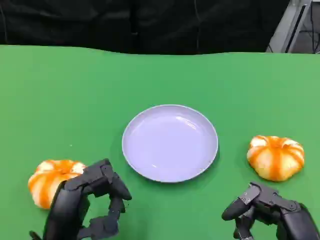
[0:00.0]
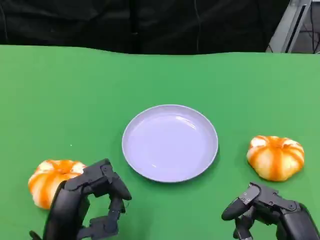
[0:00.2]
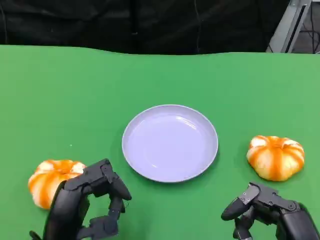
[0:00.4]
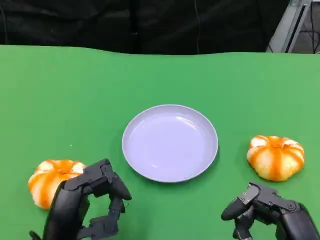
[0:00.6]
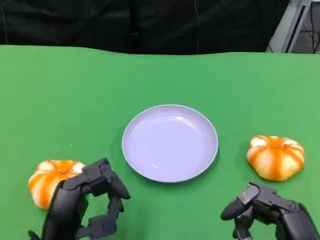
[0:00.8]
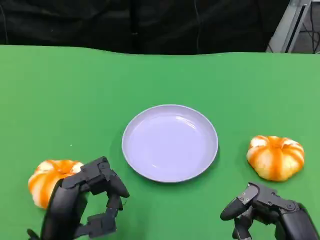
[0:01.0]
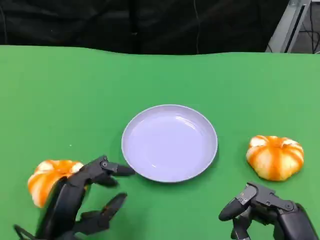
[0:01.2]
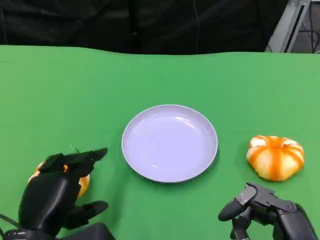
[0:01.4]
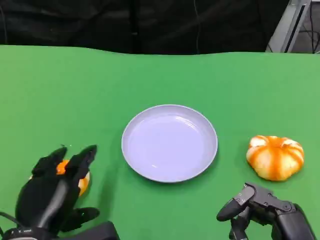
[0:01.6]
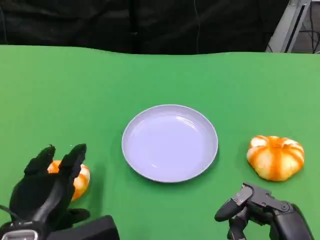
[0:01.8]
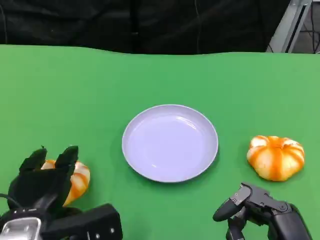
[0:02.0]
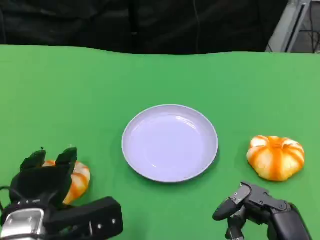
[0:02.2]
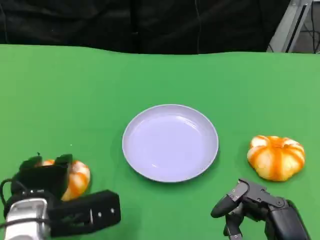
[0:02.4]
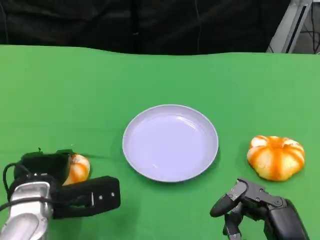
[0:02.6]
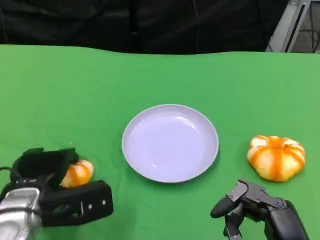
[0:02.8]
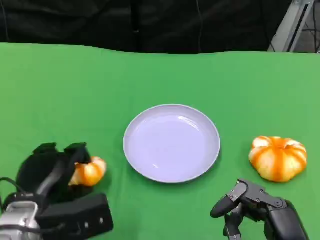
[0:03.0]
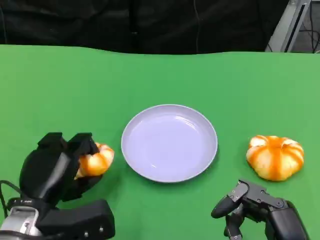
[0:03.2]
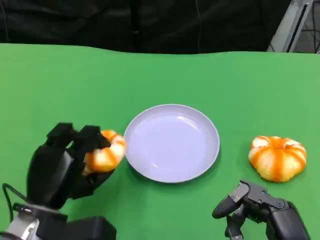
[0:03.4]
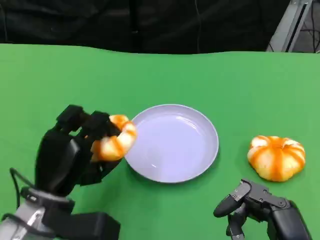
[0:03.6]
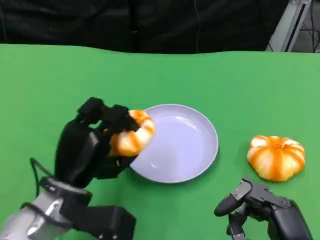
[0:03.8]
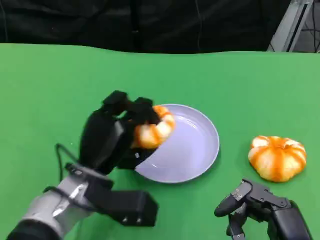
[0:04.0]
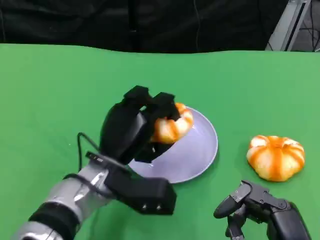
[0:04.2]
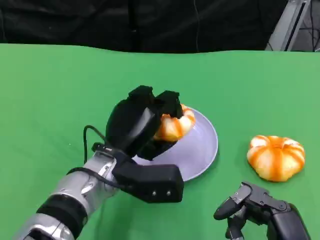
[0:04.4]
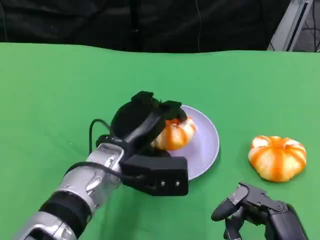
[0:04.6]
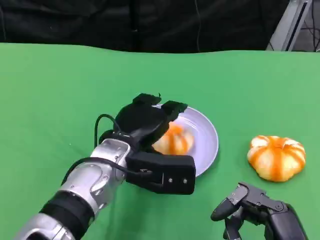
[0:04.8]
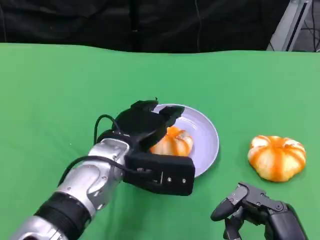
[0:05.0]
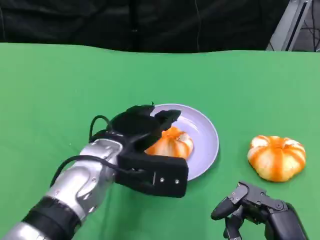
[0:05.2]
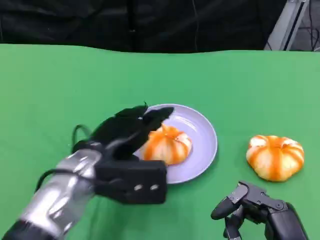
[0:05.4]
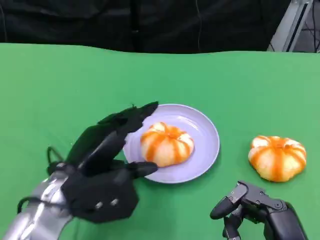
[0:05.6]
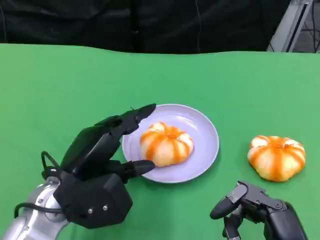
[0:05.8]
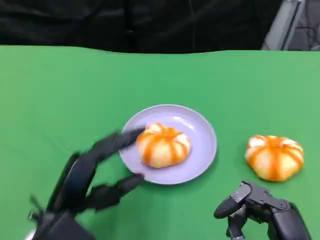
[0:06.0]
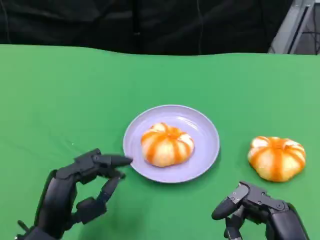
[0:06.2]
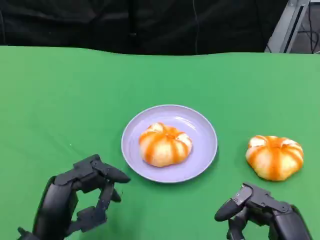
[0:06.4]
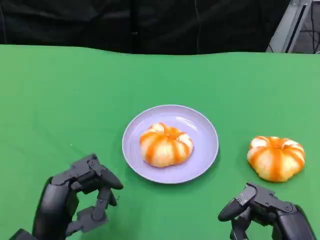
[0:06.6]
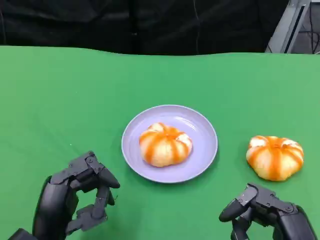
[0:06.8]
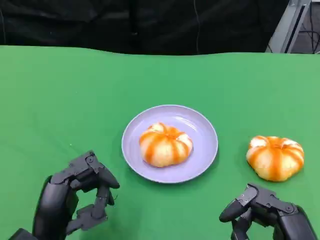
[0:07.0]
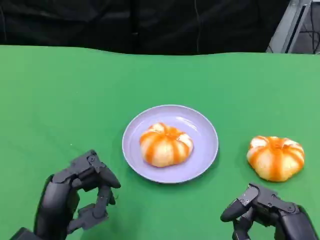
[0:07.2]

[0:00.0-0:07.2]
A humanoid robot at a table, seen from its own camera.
Task of the whole recording: Grasp the bread from the table and place it into the plate.
0:01.4 to 0:02.8: The left hand travels forward by approximately 5 cm.
0:02.8 to 0:04.4: The left hand heads to the right and forward, covering approximately 15 cm.
0:04.4 to 0:05.8: The left hand moves to the left and backward, about 10 cm.
0:05.8 to 0:07.2: The left hand goes about 5 cm backward.

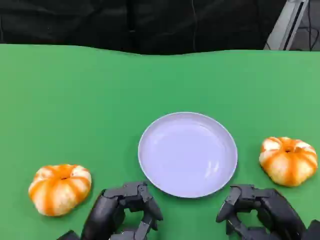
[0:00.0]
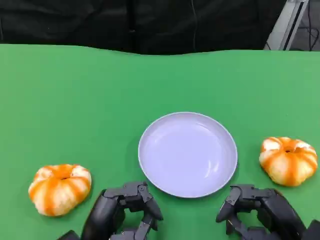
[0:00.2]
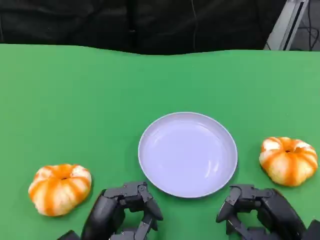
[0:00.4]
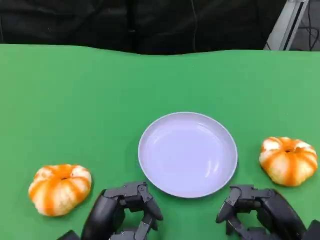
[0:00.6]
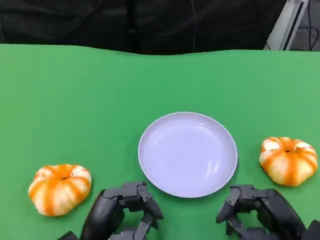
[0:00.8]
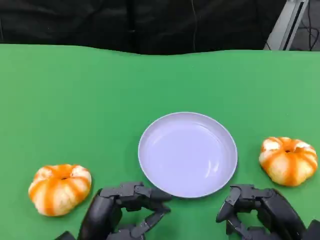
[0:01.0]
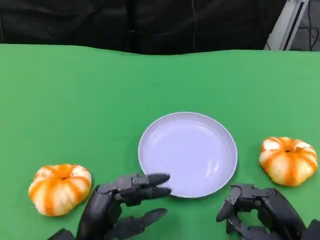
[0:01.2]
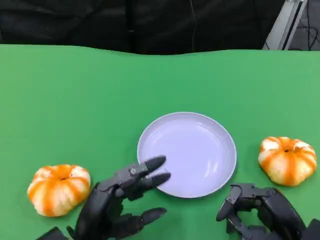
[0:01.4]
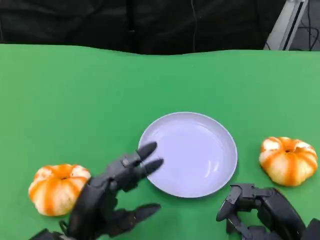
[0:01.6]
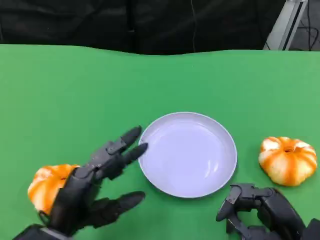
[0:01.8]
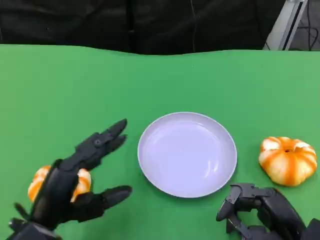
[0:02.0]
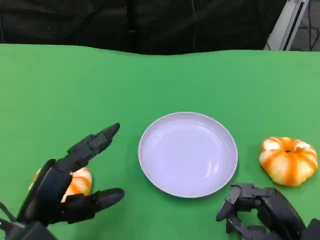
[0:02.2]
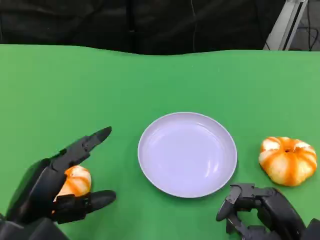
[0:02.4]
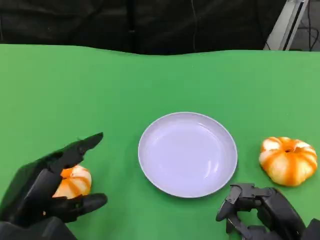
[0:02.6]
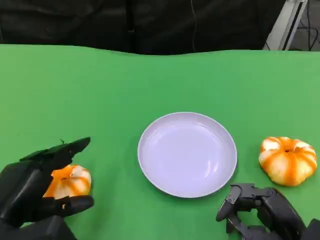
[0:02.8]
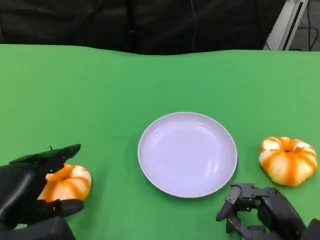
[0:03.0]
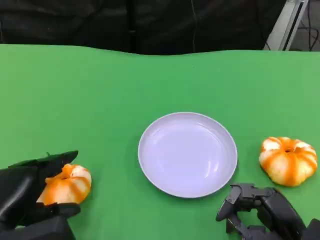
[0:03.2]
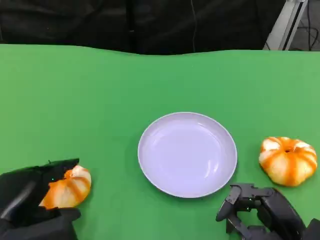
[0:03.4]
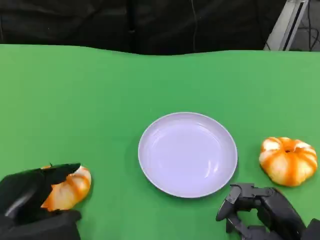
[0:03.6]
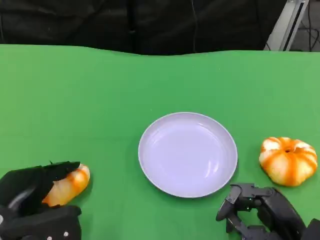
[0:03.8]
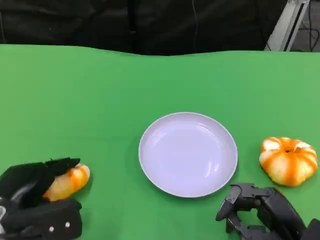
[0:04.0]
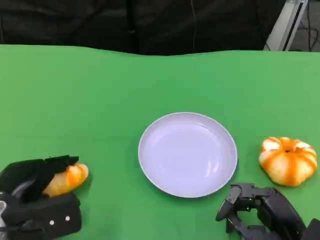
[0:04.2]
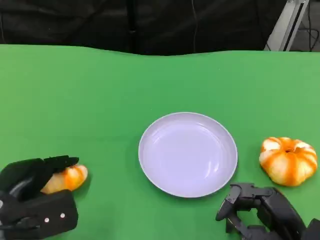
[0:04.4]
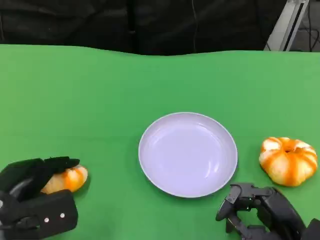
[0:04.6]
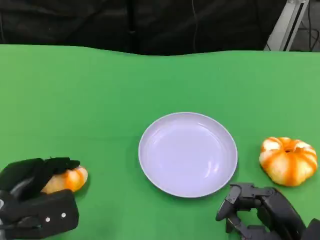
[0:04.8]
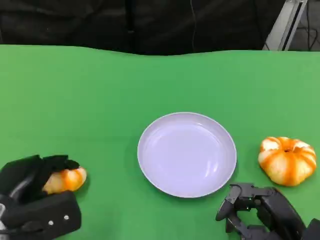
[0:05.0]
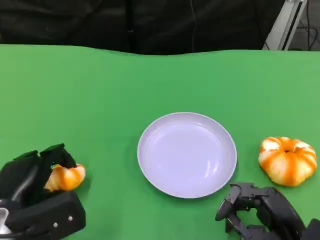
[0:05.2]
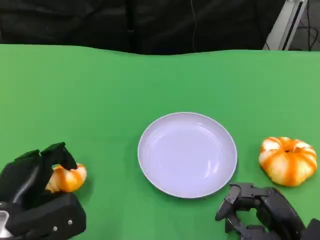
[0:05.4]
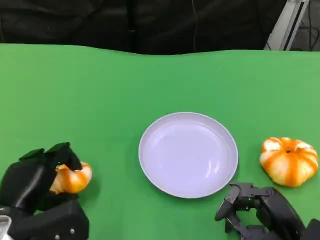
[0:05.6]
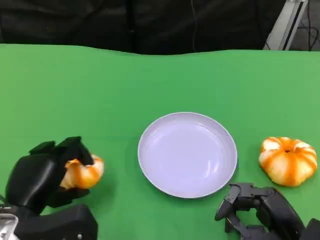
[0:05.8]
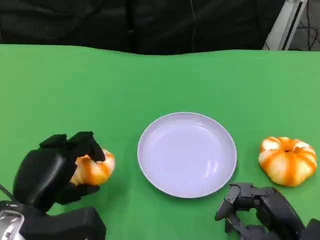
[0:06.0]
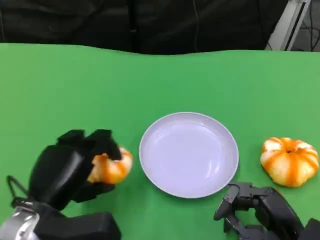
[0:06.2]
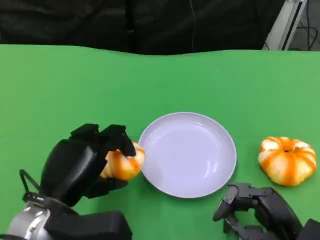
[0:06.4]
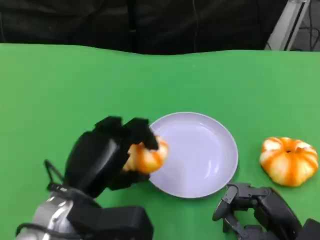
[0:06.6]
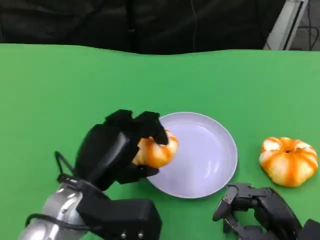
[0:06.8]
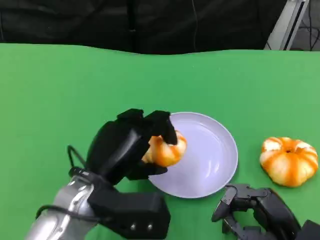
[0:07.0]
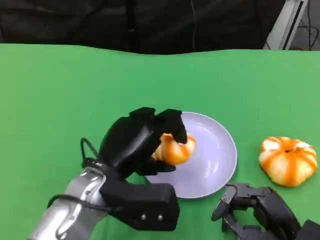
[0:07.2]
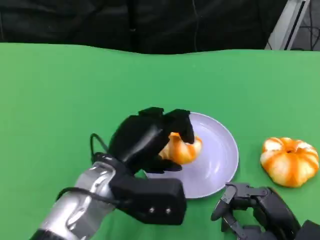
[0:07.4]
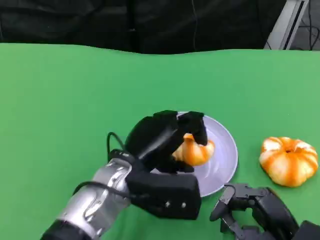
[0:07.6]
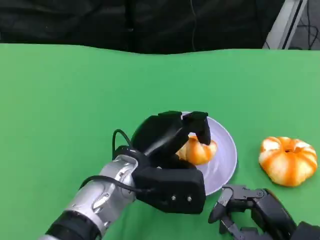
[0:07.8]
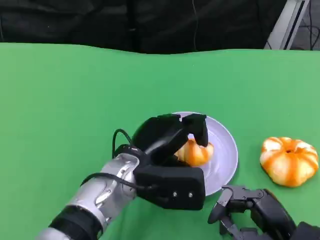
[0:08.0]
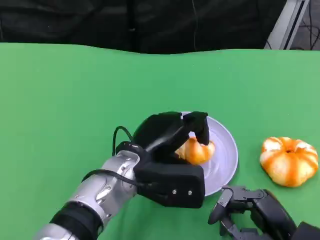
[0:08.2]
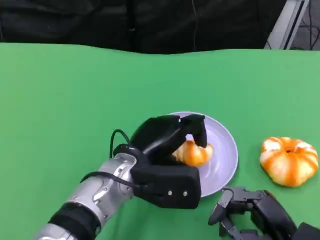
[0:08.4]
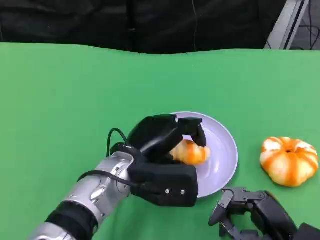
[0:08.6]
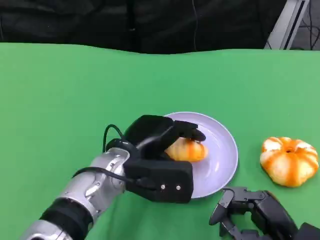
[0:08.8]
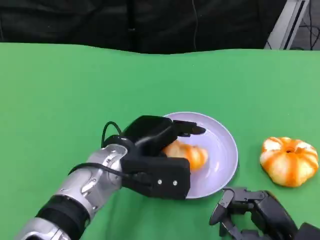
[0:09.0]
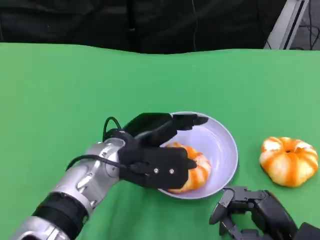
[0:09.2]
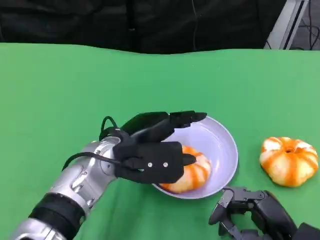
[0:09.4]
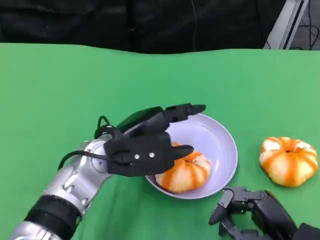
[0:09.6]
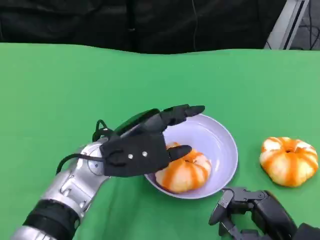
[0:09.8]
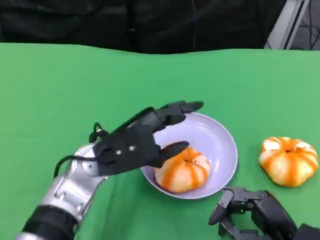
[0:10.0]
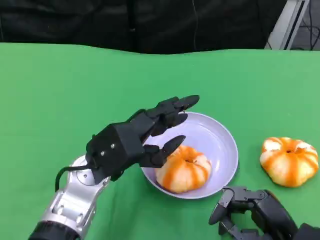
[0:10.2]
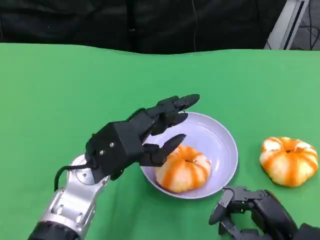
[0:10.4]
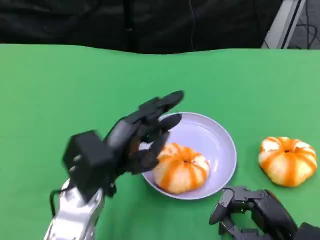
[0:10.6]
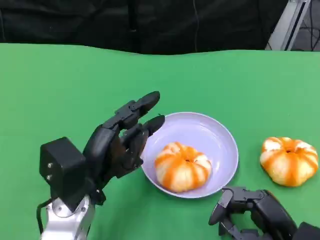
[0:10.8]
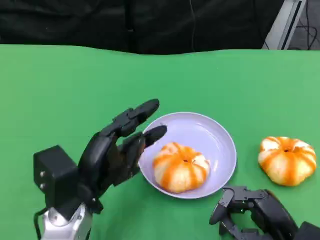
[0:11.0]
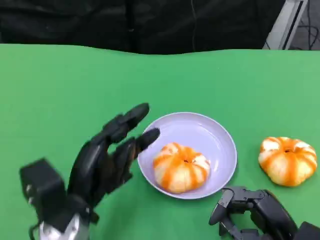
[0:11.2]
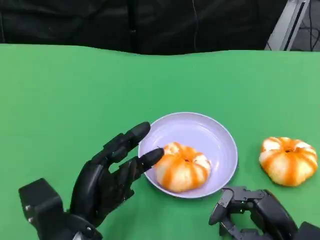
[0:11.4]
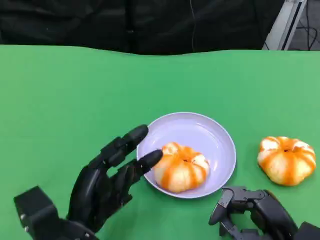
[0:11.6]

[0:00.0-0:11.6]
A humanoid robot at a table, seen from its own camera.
Task of the whole recording: Grasp the bread from the table and place it into the plate.
0:00.0 to 0:01.4: The hands stay close to where they were, moving slightly.
0:01.4 to 0:02.8: The left hand is displaced to the left and upward by approximately 10 cm.
0:02.8 to 0:04.4: The left hand moves approximately 5 cm.
0:05.8 to 0:07.2: The left hand shifts approximately 10 cm to the right.
0:07.2 to 0:08.8: There are only small adjustments of the hands.
0:10.2 to 0:11.6: The left hand travels backward and downward by roughly 10 cm.

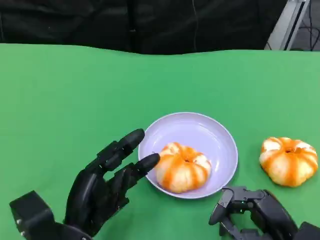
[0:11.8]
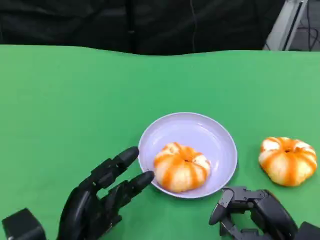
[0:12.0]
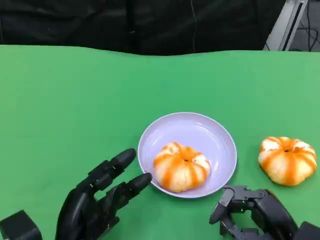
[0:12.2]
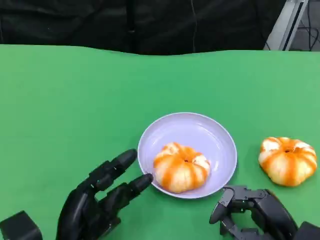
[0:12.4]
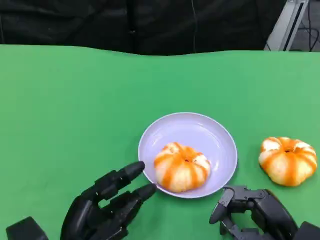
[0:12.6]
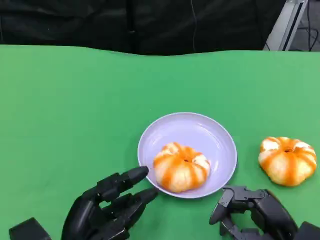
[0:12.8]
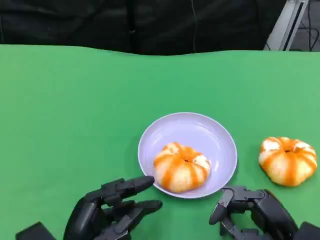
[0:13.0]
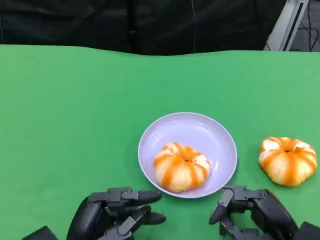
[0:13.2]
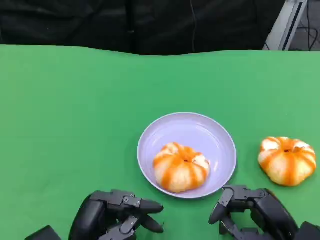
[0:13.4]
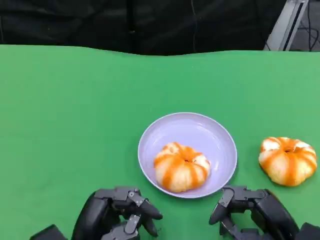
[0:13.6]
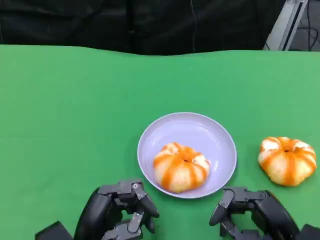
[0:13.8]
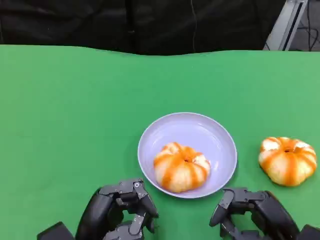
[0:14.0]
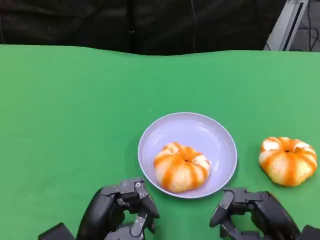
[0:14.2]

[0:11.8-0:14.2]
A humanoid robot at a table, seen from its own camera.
Task of the whole recording: Grasp the bread from the table and place it into the plate.
0:11.8 to 0:14.2: The hands stay close to where they were, moving slightly.

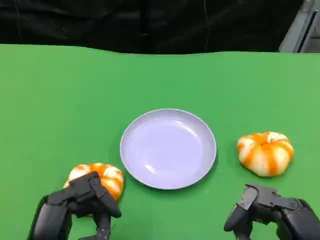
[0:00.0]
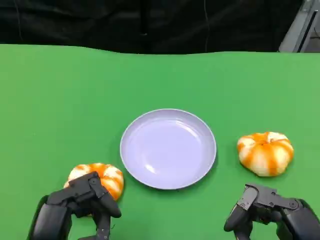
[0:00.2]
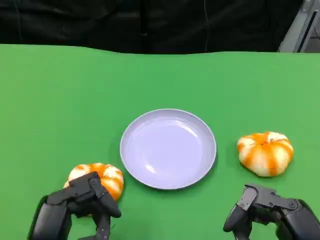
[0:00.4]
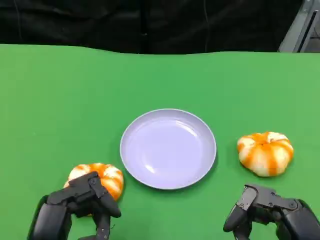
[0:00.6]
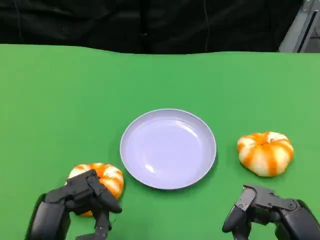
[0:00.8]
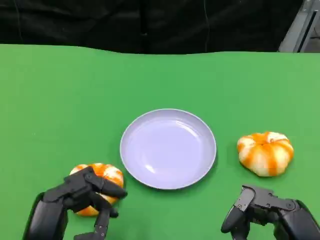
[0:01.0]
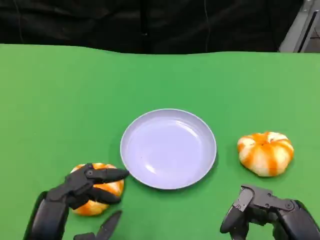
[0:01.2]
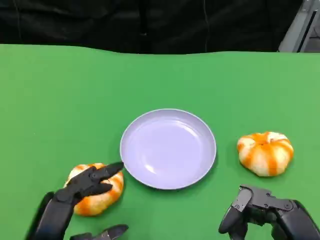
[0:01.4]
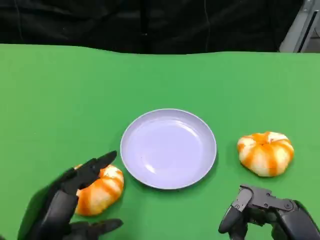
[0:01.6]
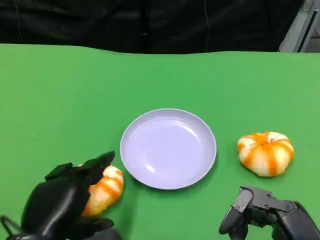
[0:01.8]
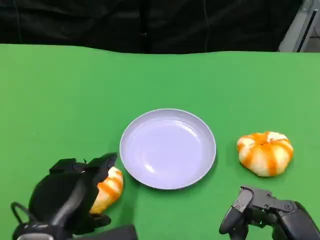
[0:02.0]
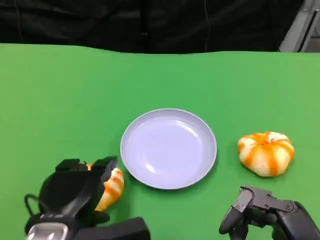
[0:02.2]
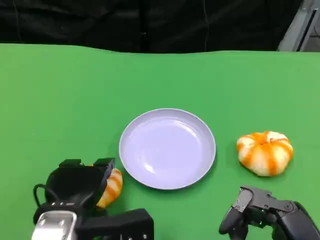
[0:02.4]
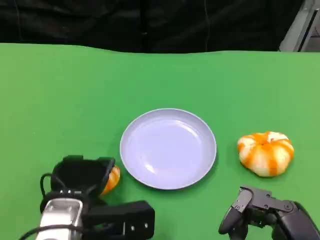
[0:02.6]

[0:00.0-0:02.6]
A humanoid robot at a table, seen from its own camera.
Task of the whole recording: Grasp the bread from the table and place it into the plate.
0:00.0 to 0:01.2: There are only small adjustments of the hands.
0:01.2 to 0:02.6: The left hand goes some 10 cm forward.
